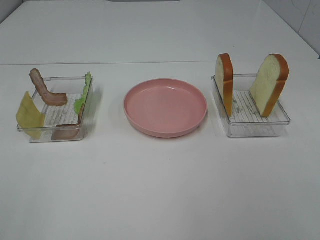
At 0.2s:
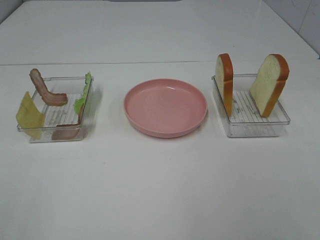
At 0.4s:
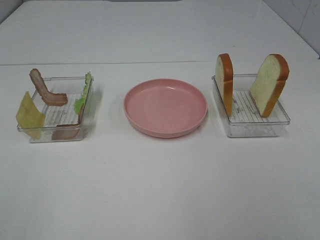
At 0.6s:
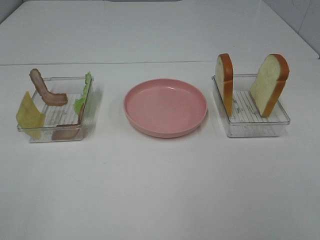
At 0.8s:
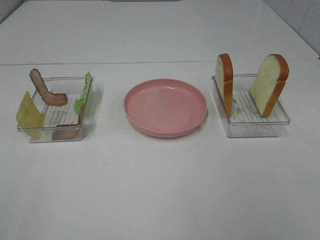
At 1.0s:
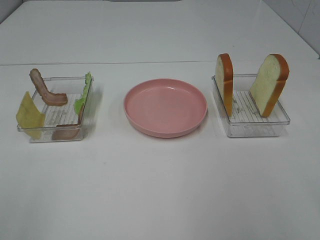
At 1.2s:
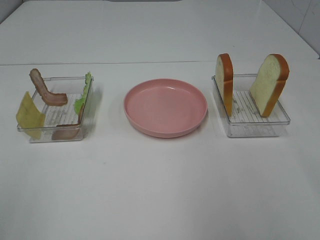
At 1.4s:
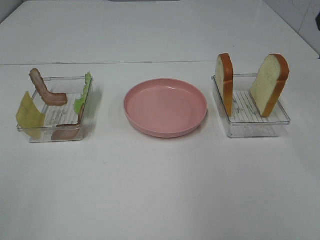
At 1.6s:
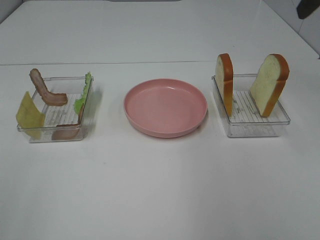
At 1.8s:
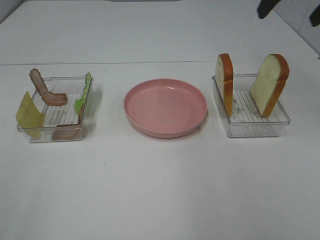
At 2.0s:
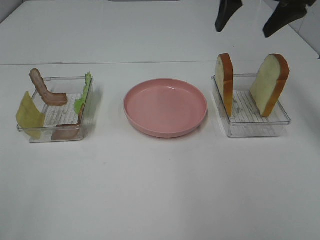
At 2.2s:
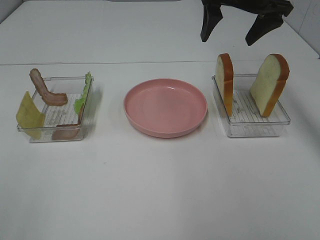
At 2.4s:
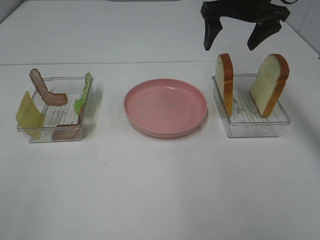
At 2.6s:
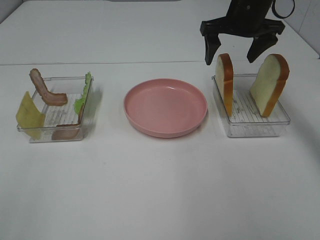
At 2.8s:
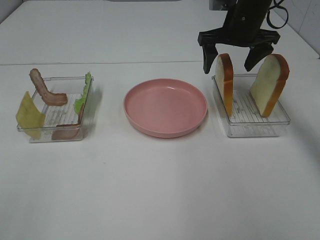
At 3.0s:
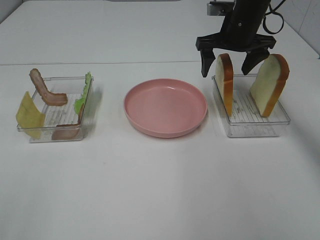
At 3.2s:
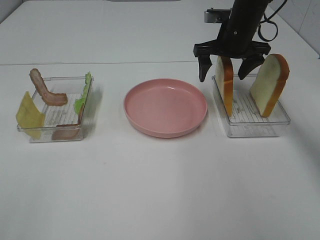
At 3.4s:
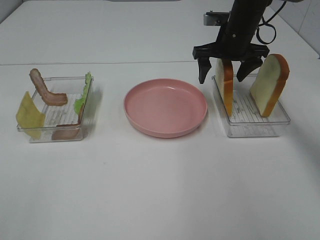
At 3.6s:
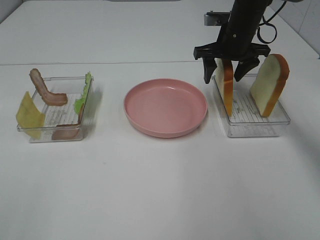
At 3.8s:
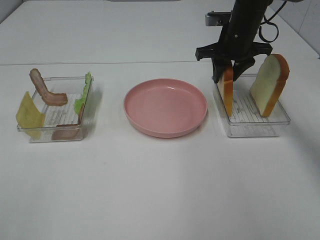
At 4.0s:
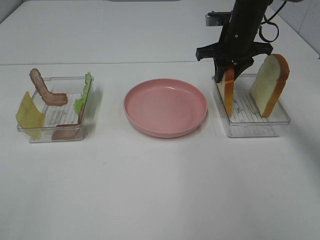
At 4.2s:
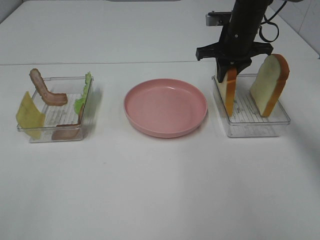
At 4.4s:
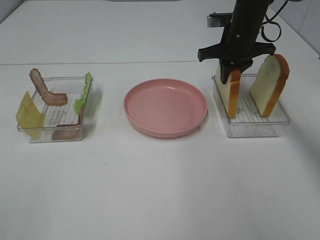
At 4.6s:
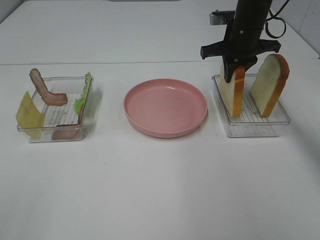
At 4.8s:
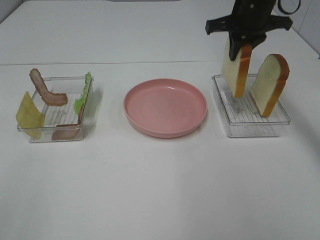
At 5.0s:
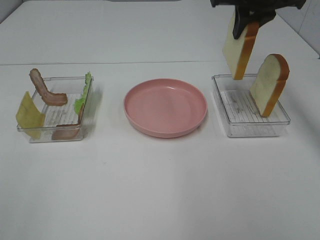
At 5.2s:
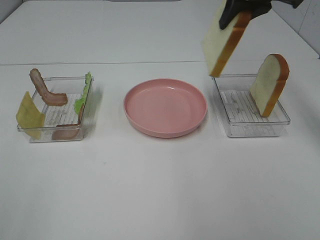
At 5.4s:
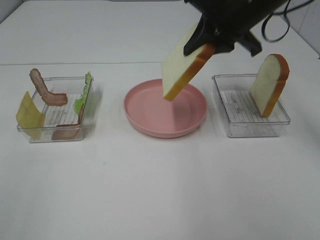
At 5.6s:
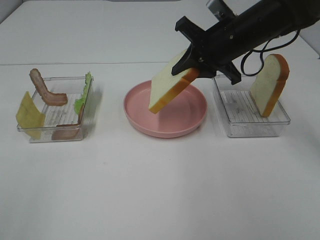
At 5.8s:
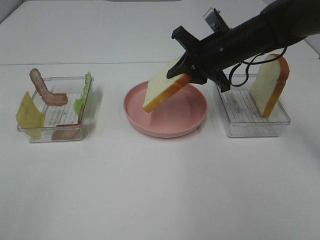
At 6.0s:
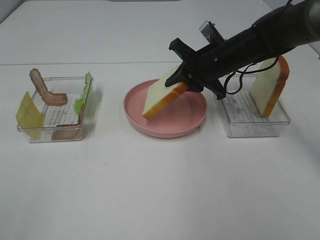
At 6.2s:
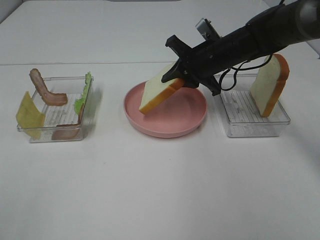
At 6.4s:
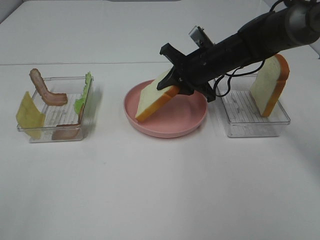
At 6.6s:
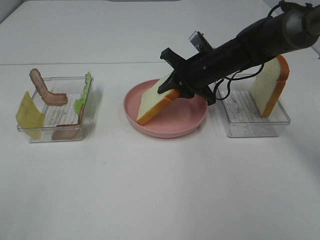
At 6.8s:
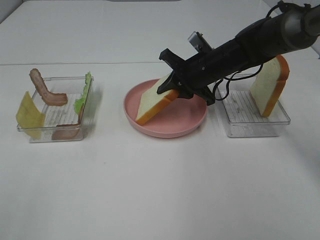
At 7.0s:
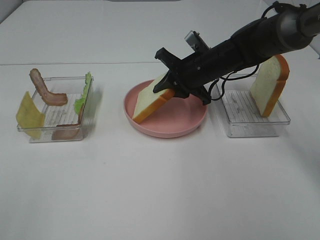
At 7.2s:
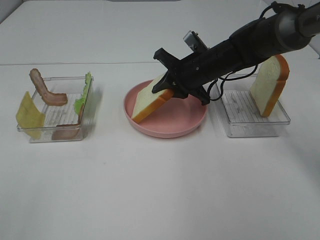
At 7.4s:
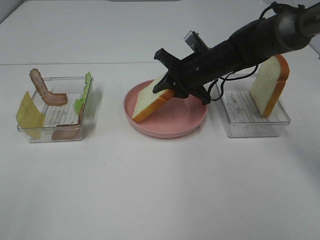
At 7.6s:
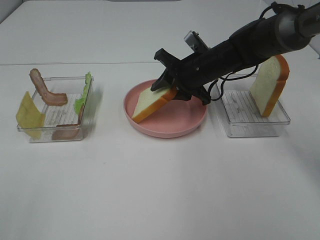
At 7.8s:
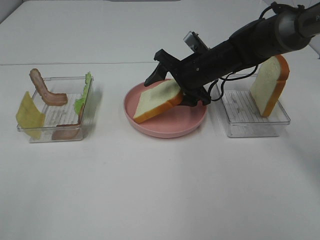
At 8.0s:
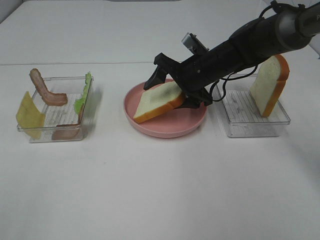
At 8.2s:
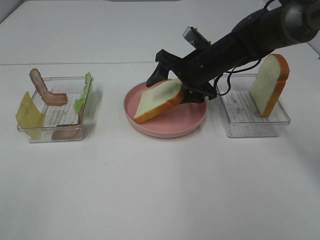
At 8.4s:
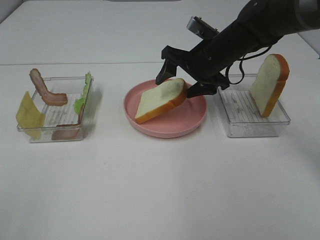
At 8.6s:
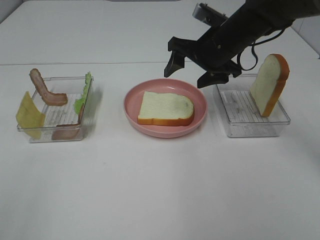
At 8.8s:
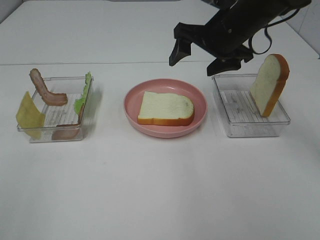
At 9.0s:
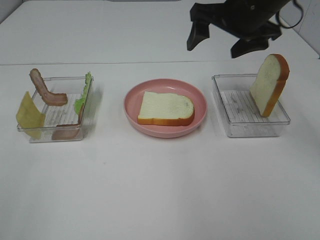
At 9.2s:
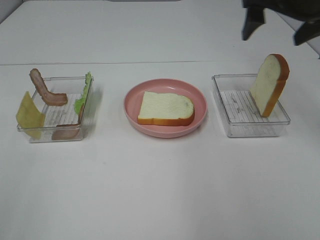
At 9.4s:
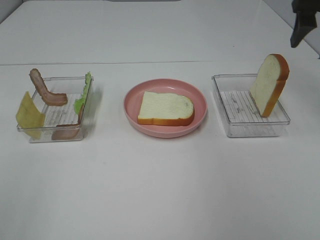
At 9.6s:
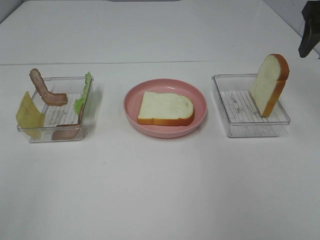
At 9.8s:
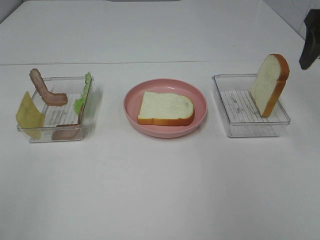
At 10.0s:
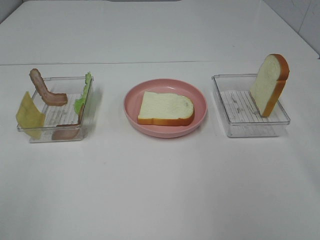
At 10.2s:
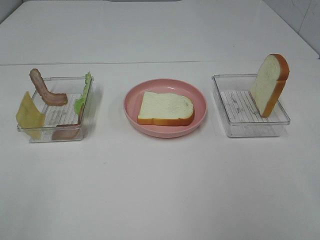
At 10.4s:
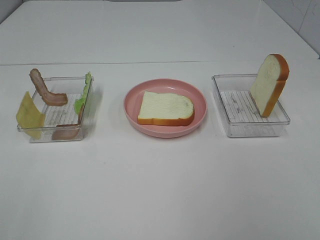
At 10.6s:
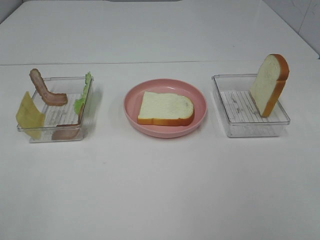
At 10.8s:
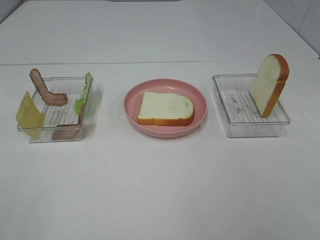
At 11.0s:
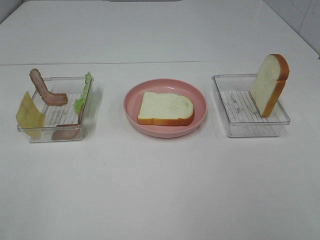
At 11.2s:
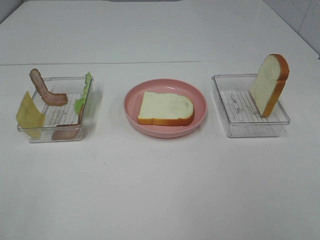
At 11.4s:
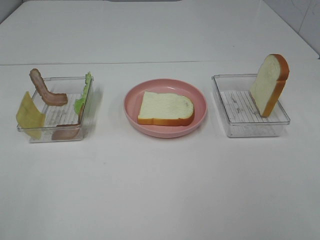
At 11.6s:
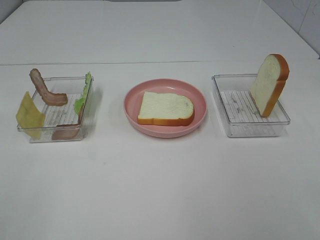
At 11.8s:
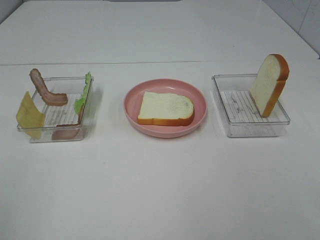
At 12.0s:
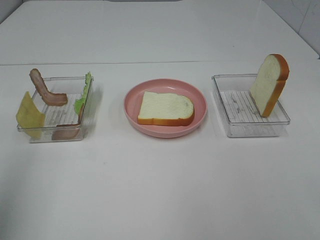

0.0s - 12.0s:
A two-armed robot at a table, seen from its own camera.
Task of the whole recording: Make sandwiches.
Step, 0.0s - 4.2s: Right hand:grab the bread slice.
Step, 4.4s - 8.6s: Right hand:place the bread slice on the plate.
1.6s - 3.0s: The right gripper is displaced downward, forward and to the left by roughly 25 cm.
3.0s - 4.4s: The right gripper closes its fingers.
4.4s - 6.0s: The right gripper shifts approximately 5 cm backward, and travels upward and back again, about 15 cm each way.
6.0s - 7.6s: The grippers make only small movements.
7.6s - 9.0s: The right gripper travels upward by roughly 15 cm, and opens up.
9.0s - 10.4s: The right gripper is displaced backward and to the right by about 35 cm.
10.4s - 12.0s: The left gripper shifts roughly 15 cm forward and upward.

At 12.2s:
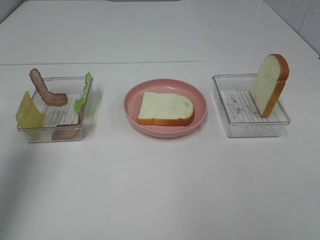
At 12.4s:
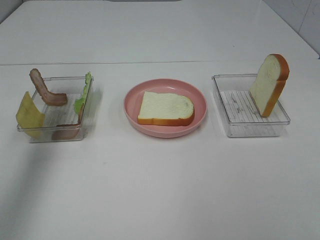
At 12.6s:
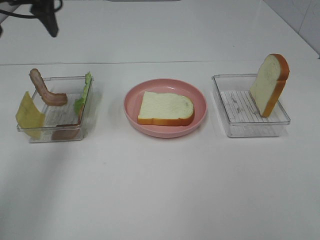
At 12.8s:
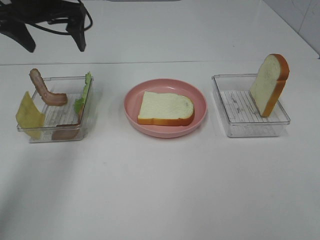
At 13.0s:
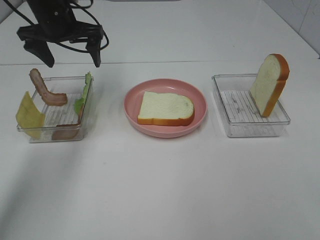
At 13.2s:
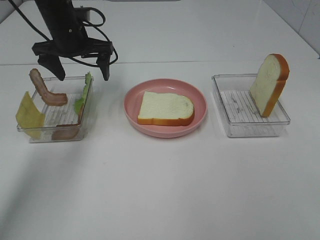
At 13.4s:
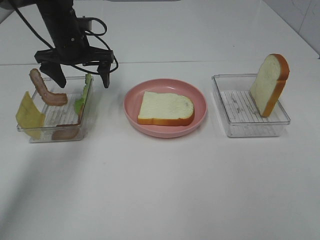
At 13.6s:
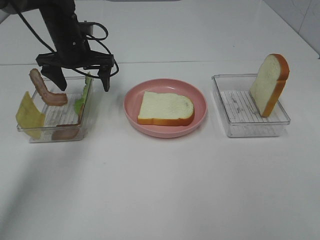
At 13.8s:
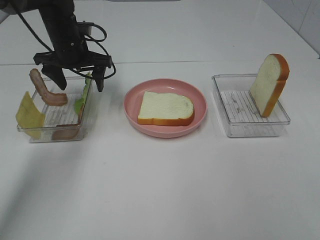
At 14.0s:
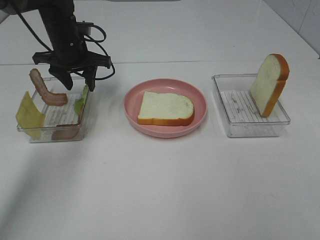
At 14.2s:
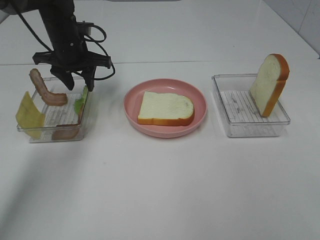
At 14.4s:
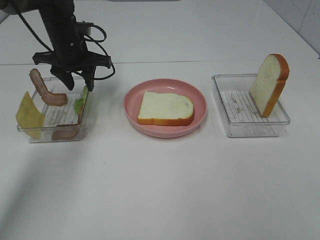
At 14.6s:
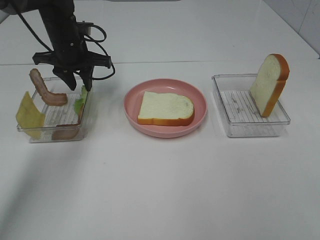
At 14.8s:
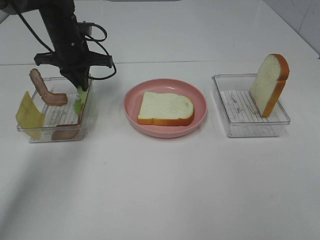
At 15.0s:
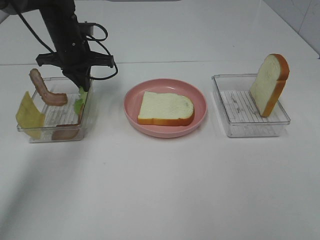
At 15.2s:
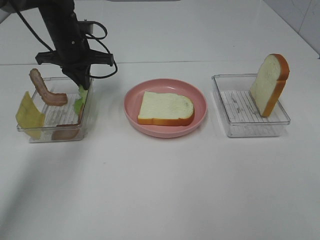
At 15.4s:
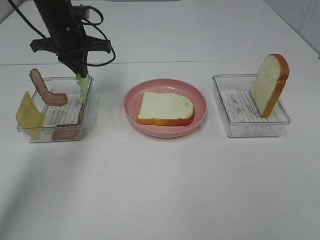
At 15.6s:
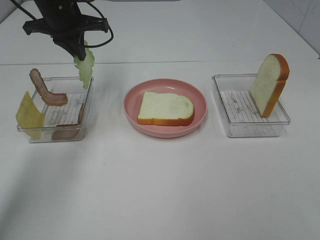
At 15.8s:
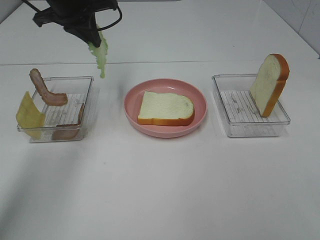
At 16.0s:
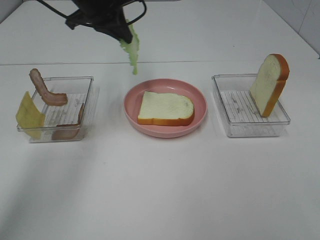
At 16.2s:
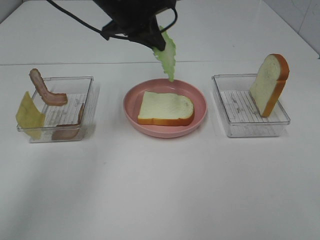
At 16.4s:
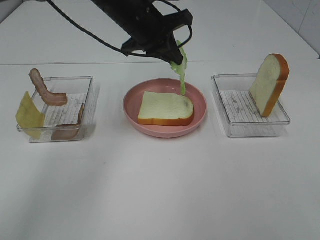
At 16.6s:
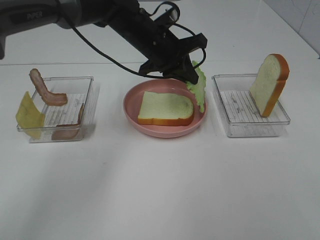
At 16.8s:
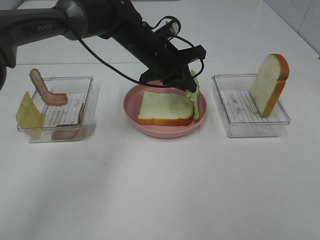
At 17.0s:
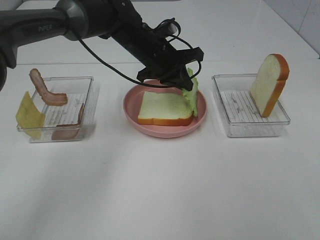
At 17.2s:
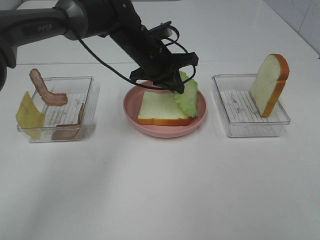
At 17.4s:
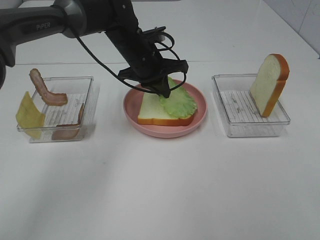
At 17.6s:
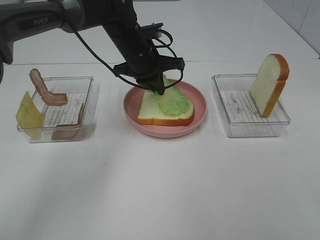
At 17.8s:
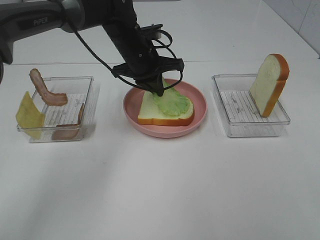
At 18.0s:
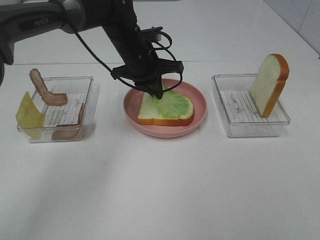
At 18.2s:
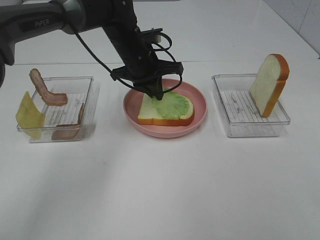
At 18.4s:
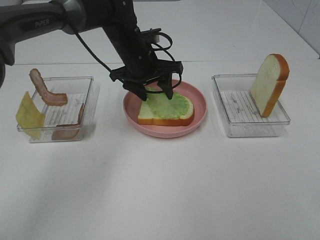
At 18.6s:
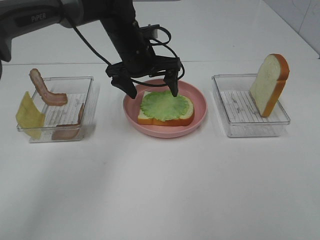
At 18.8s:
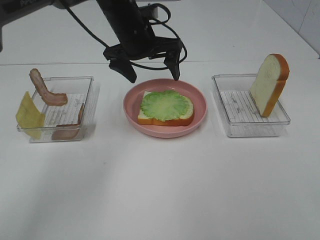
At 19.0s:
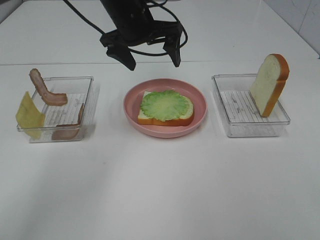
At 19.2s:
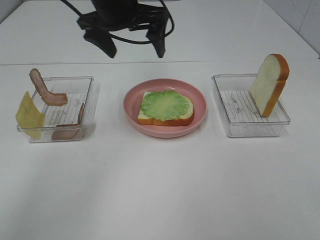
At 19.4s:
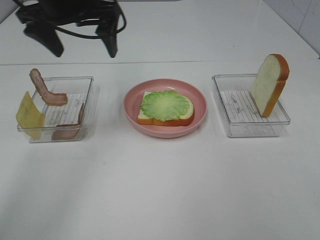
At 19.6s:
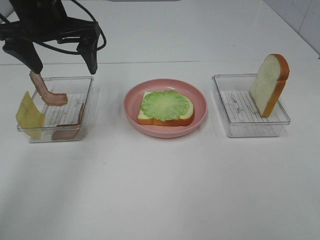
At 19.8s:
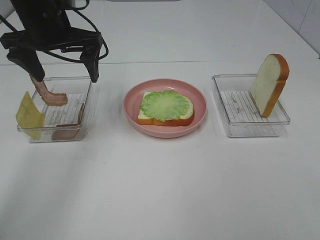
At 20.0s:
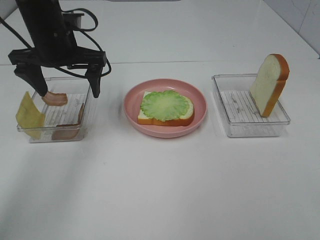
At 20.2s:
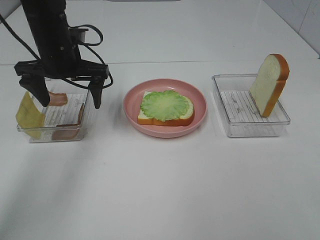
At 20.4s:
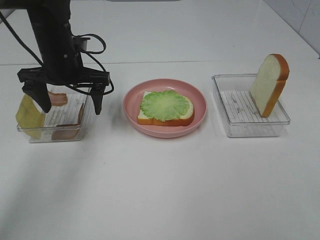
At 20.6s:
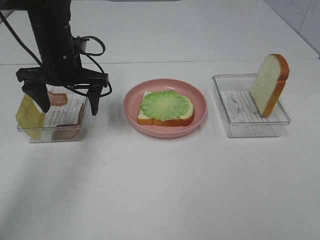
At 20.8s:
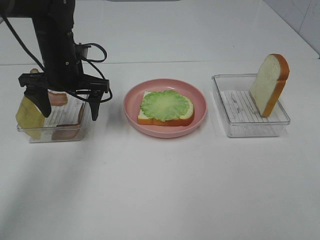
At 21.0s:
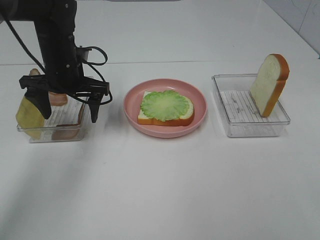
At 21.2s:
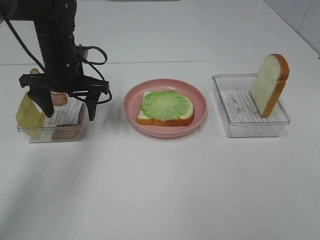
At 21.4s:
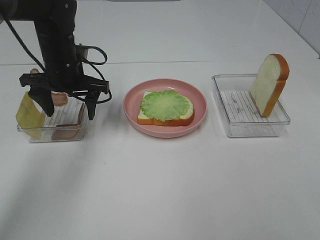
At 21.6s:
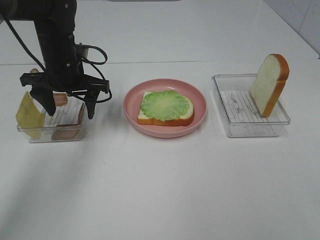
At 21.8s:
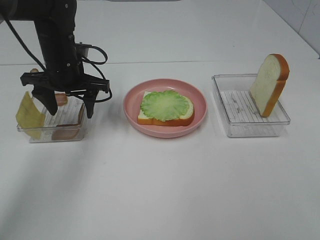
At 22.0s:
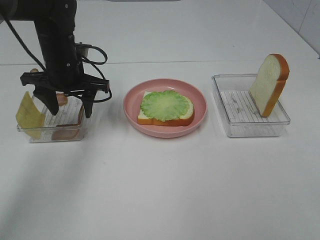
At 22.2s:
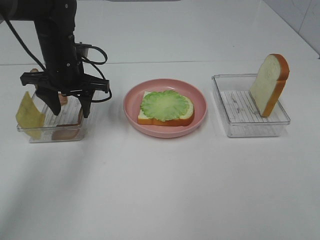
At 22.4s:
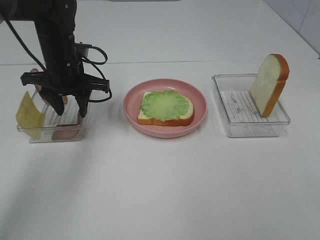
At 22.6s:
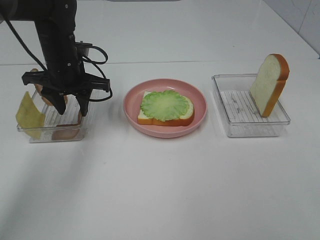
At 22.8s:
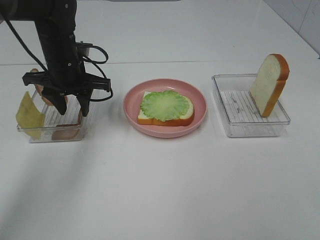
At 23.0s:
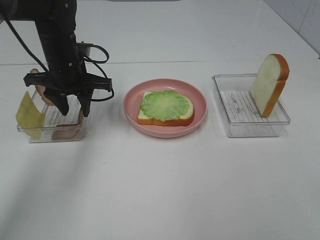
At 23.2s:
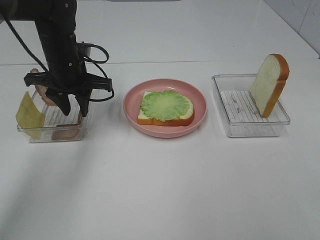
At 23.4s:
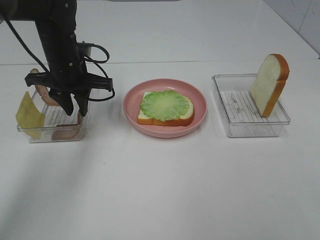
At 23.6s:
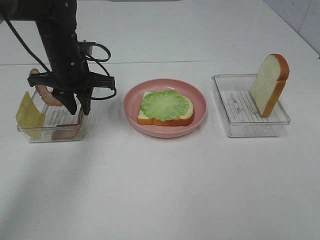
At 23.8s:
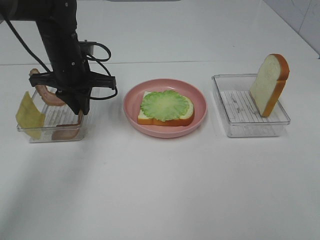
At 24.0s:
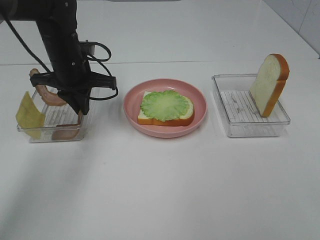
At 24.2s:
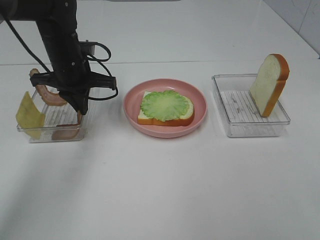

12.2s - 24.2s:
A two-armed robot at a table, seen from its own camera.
Task of the whole recording: Make sandwiches.
Step, 12.2s - 14.8s: Left hand:grab the lettuce slice.
Step, 15.0s - 18.8s: Left hand:place the lettuce slice on the bread slice.
12.2s - 13.8s: The left gripper is displaced forward, downward and to the right by roughly 35 cm.
13.8s - 15.2s: The left gripper closes up.
15.2s - 16.6s: The left gripper moves to the right, some 15 cm.
18.2s - 19.8s: The left gripper travels to the left, upward and backward by some 15 cm, and opens up.
19.8s - 21.2s: The left gripper is displaced downward by some 10 cm.
21.2s - 22.6s: Both grippers stay about where they are.
22.6s - 24.2s: The left gripper closes up.
